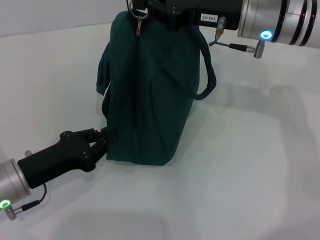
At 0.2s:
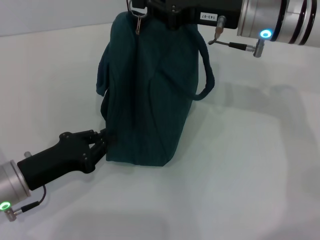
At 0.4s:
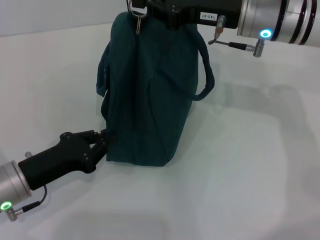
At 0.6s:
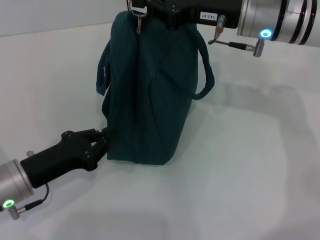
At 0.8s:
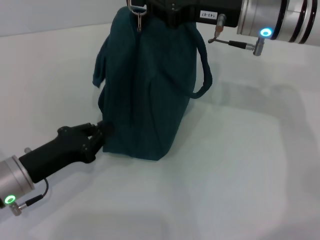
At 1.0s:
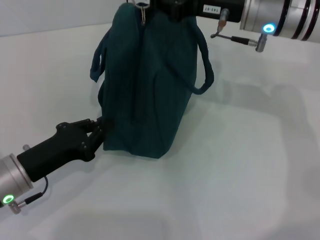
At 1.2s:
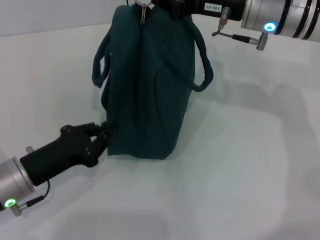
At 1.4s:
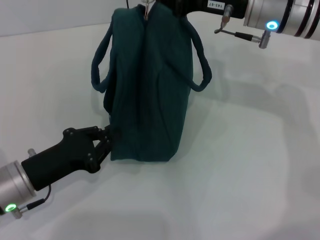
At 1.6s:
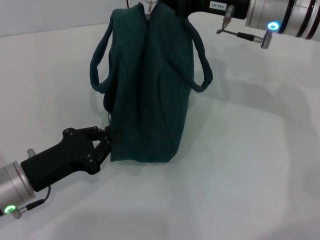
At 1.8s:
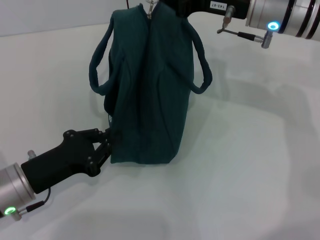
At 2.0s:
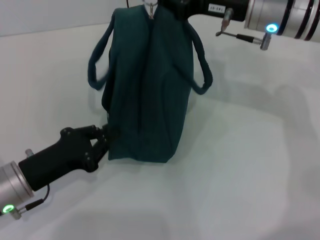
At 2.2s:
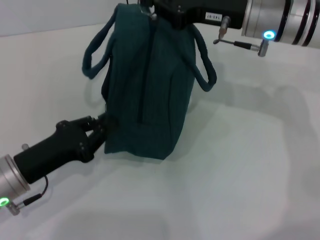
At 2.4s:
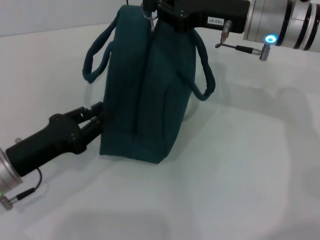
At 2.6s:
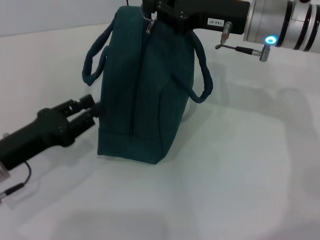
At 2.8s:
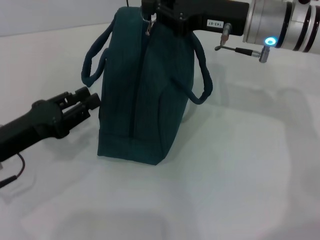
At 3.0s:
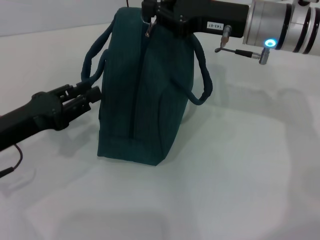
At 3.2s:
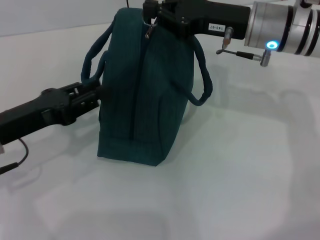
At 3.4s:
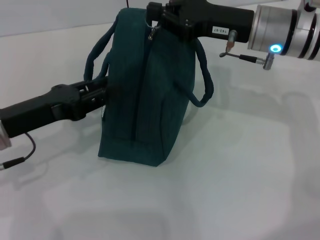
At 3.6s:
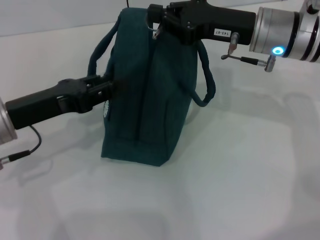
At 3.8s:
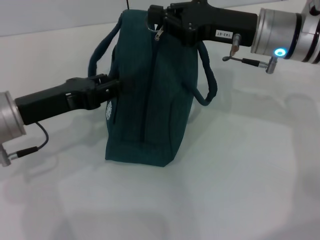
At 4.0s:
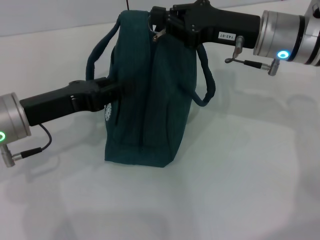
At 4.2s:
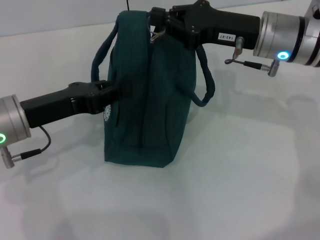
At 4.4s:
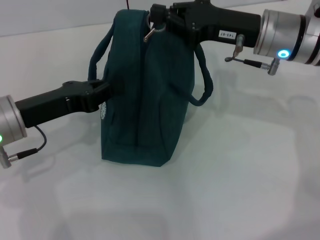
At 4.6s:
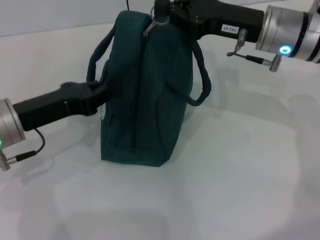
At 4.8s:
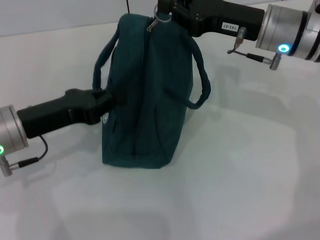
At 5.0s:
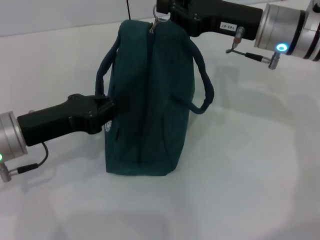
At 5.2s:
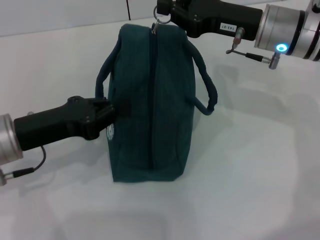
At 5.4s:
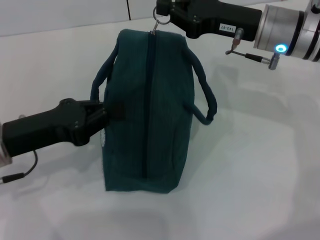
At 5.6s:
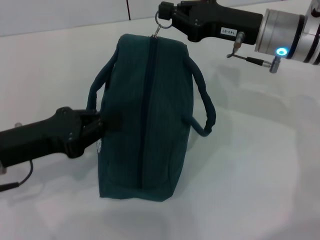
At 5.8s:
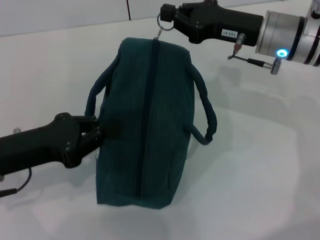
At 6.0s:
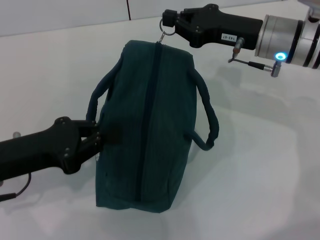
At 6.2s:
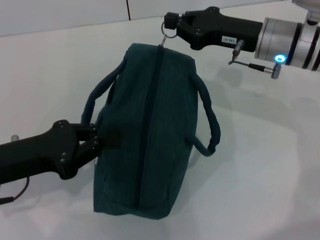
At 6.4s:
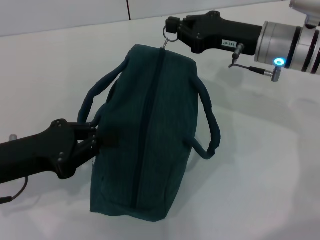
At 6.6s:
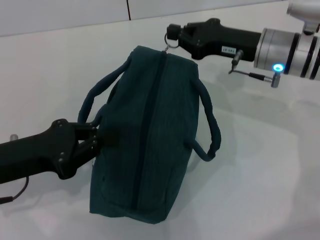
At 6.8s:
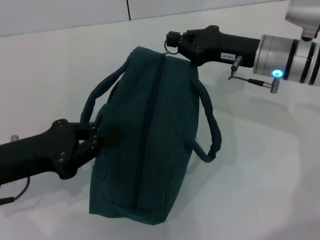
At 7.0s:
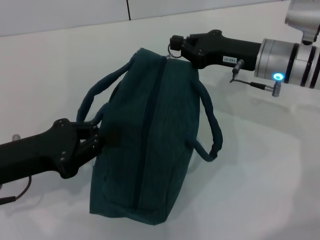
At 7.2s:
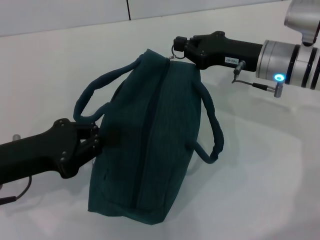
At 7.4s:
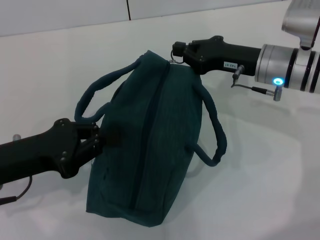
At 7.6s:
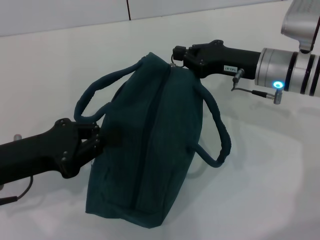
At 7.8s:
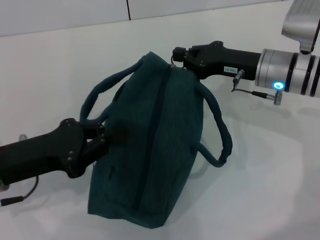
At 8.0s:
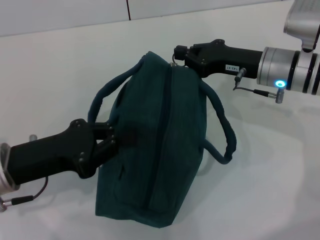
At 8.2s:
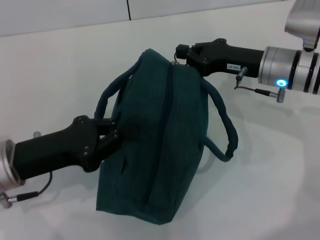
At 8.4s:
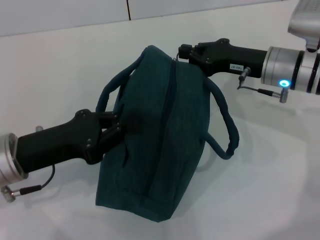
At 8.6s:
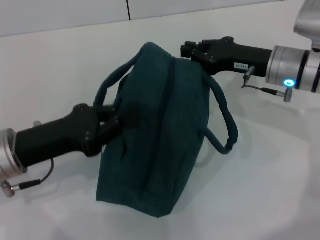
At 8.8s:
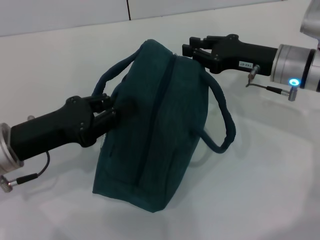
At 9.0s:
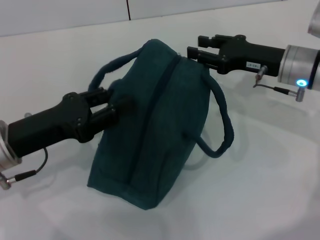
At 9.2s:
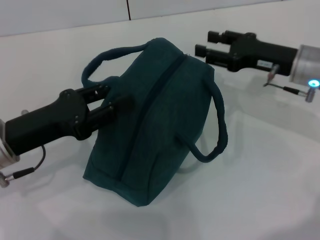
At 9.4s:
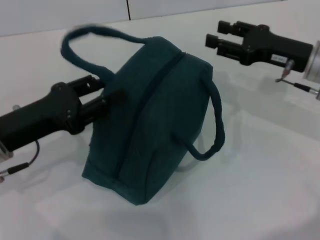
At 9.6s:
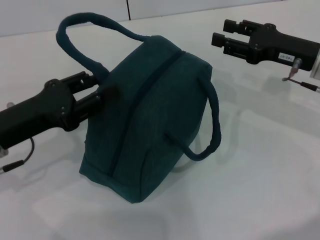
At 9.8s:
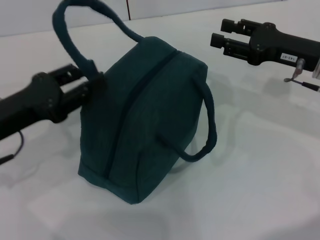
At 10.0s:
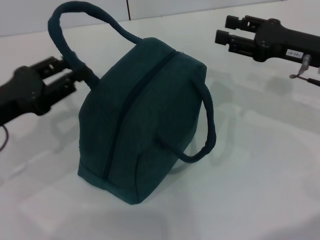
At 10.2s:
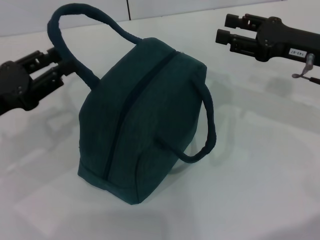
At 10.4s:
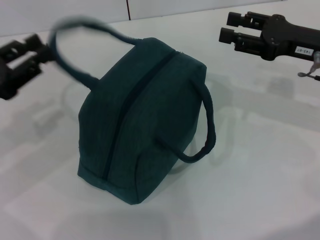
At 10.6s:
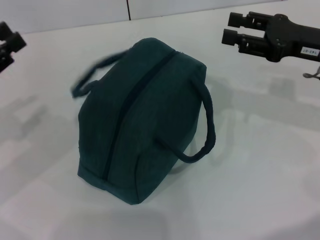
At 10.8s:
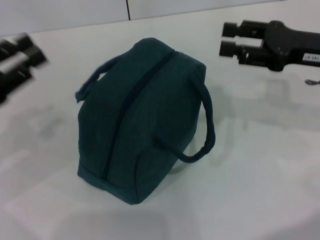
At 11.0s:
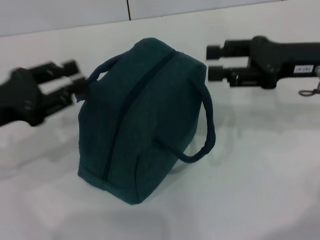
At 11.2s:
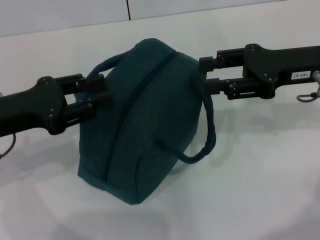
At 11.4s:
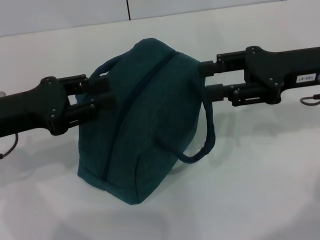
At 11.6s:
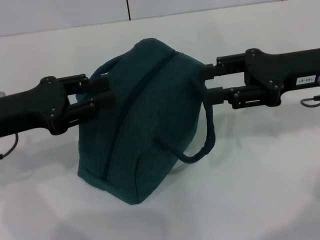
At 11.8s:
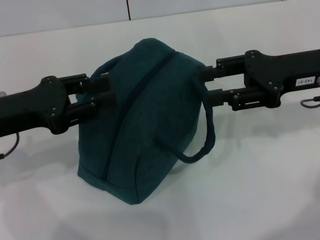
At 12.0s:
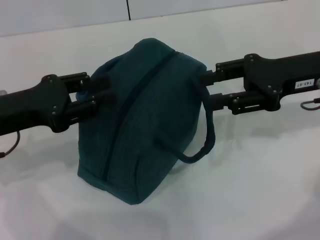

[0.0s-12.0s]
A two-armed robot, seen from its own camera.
Step, 0.0s to 8.8s: Zip up the lunch bag with your right hand.
Step, 9.0s to 9.6s: Hold the lunch bag with your left hand.
0.0s to 1.6s: The grippers stay close to where they were, moving slightly.
1.6s to 3.0s: The left gripper heads upward, covering about 5 cm.
3.0s to 4.4s: The grippers stay close to where they were, moving slightly.
4.4s to 6.0s: The left gripper changes place by roughly 5 cm.
7.6s to 9.0s: The right gripper opens.
9.0s to 10.4s: The right gripper moves some 5 cm. Meanwhile the left gripper goes approximately 5 cm to the left.
10.4s to 12.0s: The left gripper shifts by some 5 cm.
